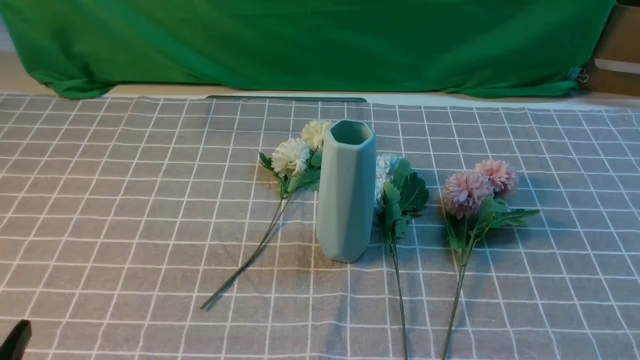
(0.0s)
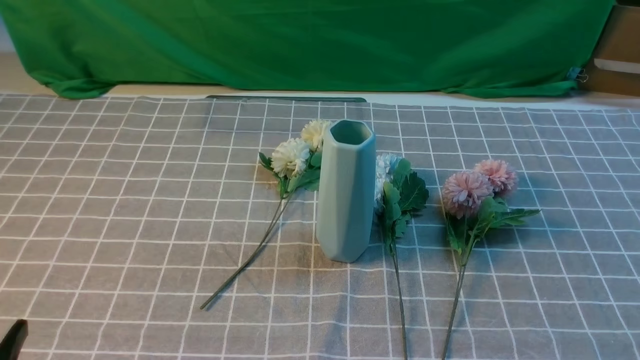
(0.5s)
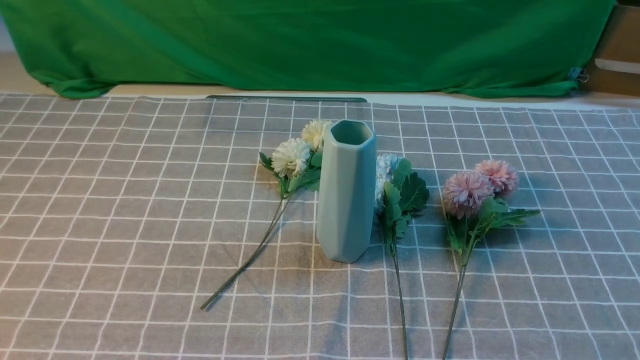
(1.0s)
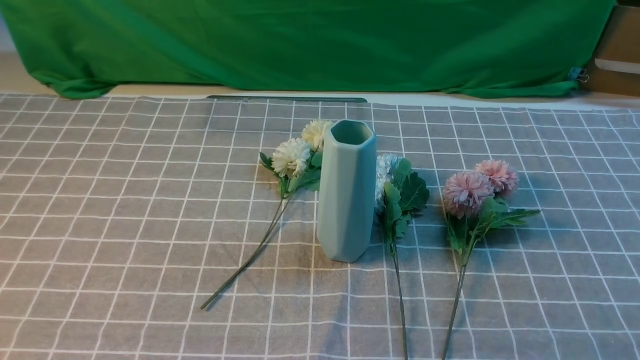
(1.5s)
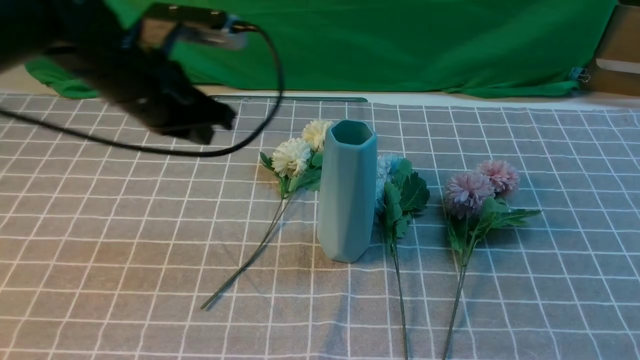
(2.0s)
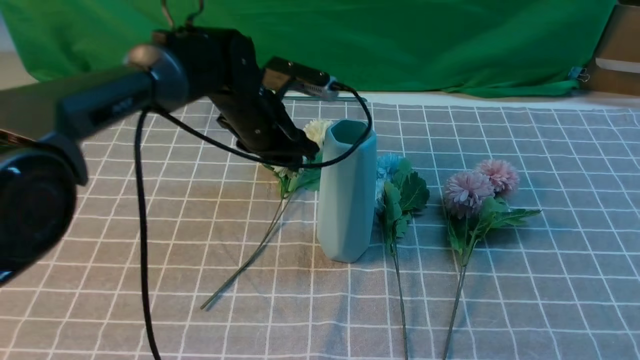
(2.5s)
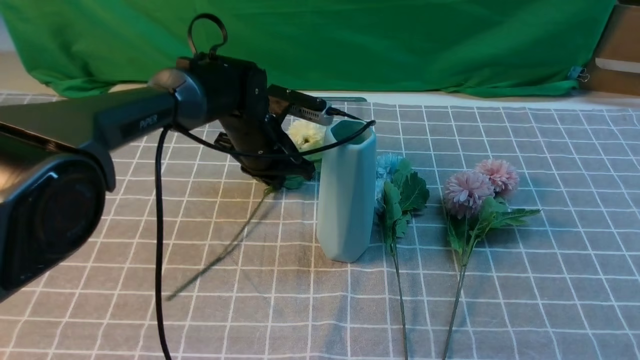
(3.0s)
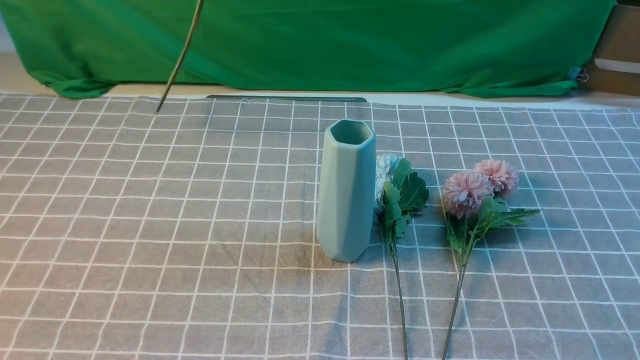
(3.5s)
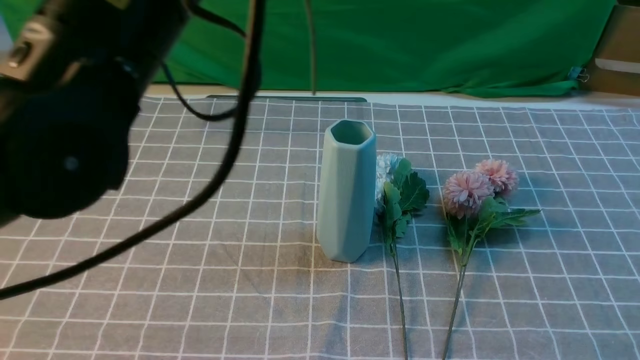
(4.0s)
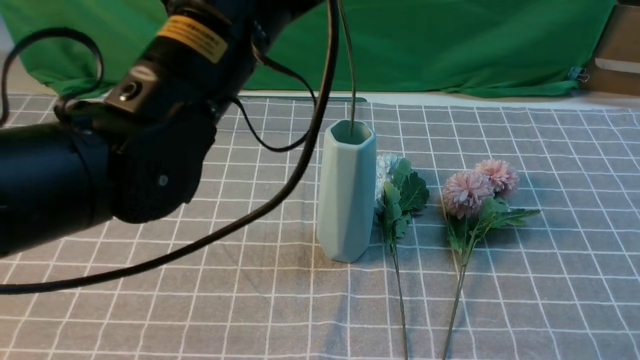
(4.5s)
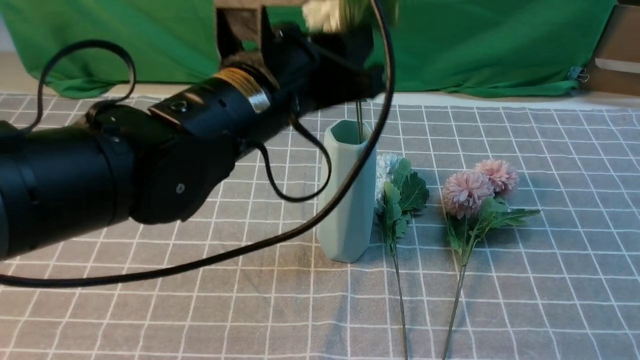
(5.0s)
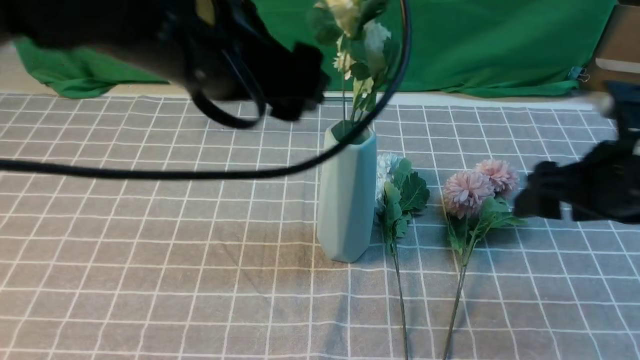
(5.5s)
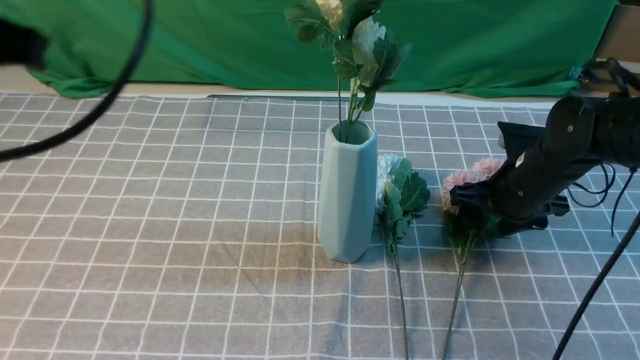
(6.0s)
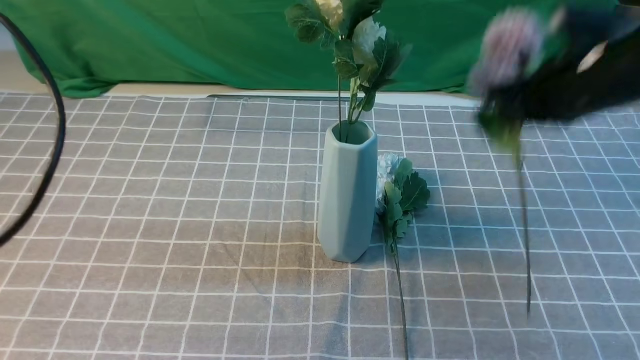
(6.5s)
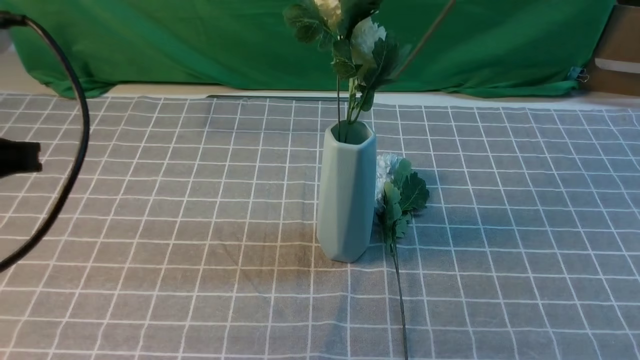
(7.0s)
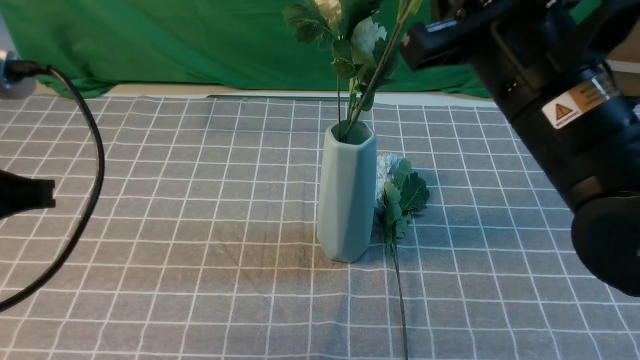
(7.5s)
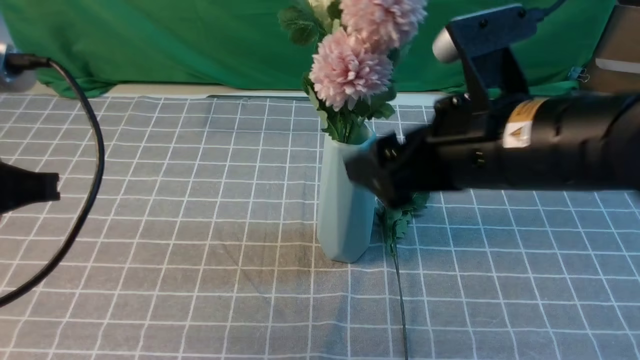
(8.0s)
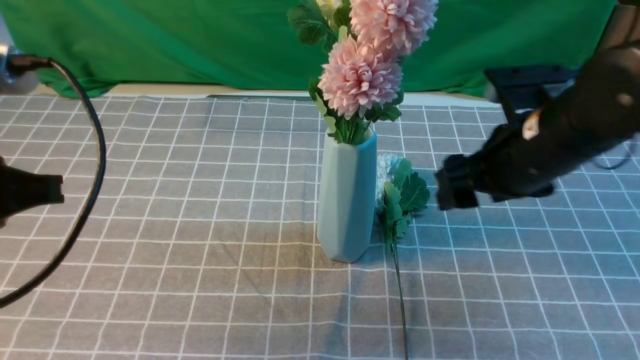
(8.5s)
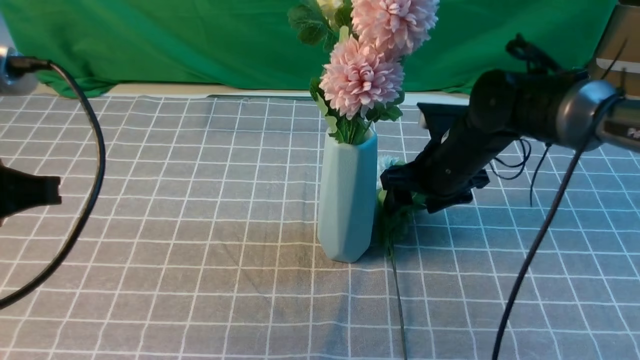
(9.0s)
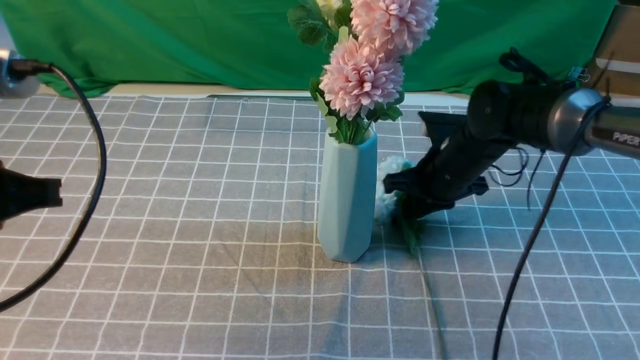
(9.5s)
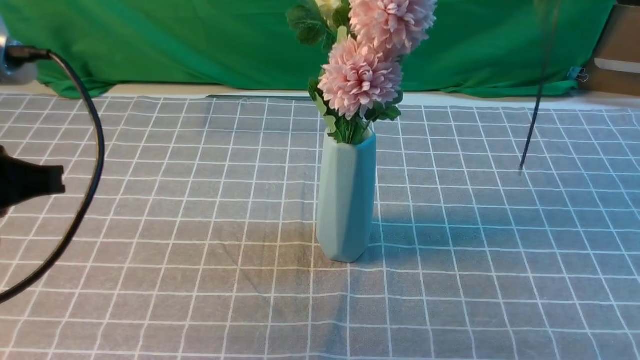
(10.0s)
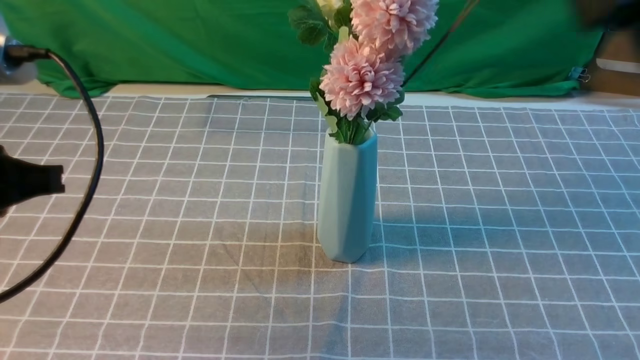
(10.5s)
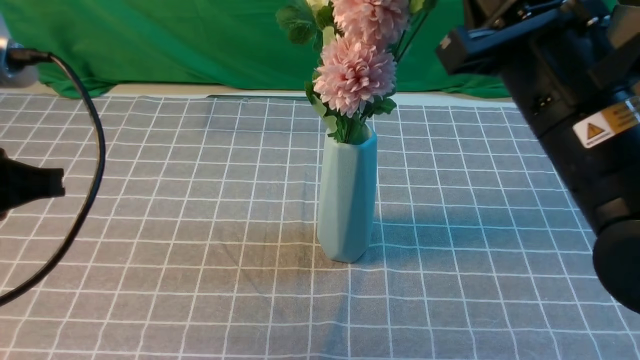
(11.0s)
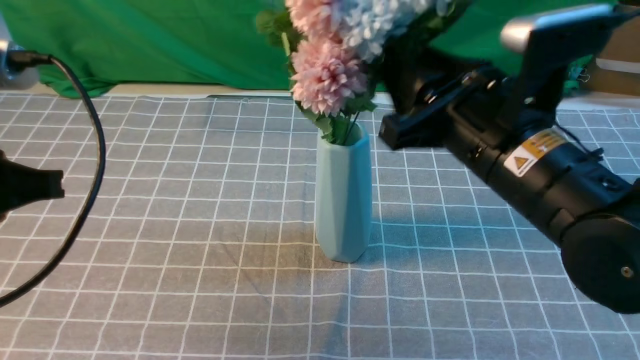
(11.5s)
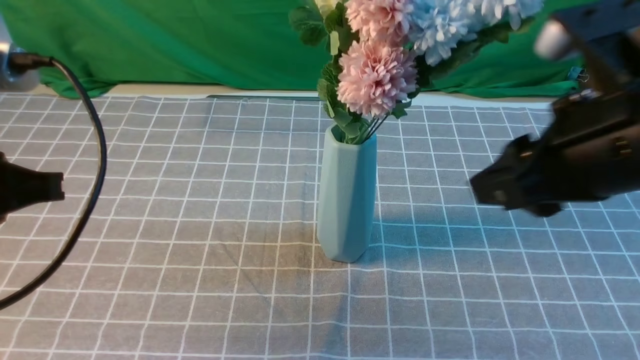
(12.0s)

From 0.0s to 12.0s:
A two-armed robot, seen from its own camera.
Task of the whole recording: insert the flowers into the vase on the table with the grey tablecloth.
Step, from 0.0s to 3.0s: use the left arm to grab a bunch of fresh flowers.
Step, from 3.5s to 5.0s: use the left arm to insert the flowers into the vase.
Step, from 6.5s to 8.0s: use the right arm to insert the flowers into the vase.
Step, from 8.5s to 9.5s: use the right arm to grab a bunch of fresh flowers.
Step, from 10.0s to 11.5s: use the right arm to insert the flowers into the vase.
From 0.0s to 2.0s: The left gripper is displaced forward by about 30 cm, and closes, while the right gripper shifts approximately 10 cm upward.
From 2.0s to 4.0s: The left gripper goes up and down, about 25 cm each way, reversing 2 times, and opens and closes again; the right gripper heads upward and forward, covering roughly 5 cm.
From 4.0s to 6.0s: The left gripper heads to the left and backward, covering roughly 15 cm, and opens and closes again, while the right gripper goes roughly 30 cm forward and downward, and opens.
From 6.0s to 8.0s: The left gripper travels downward by roughly 10 cm. Meanwhile the right gripper travels upward, backward and to the left by roughly 25 cm, and closes and opens again.
From 8.0s to 10.0s: The right gripper goes roughly 20 cm upward, to the right and forward, and closes its fingers.
From 10.0s to 12.0s: The right gripper travels backward, downward and to the left by roughly 15 cm, and opens up.

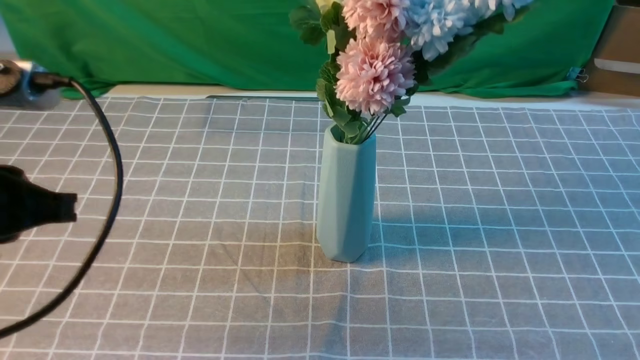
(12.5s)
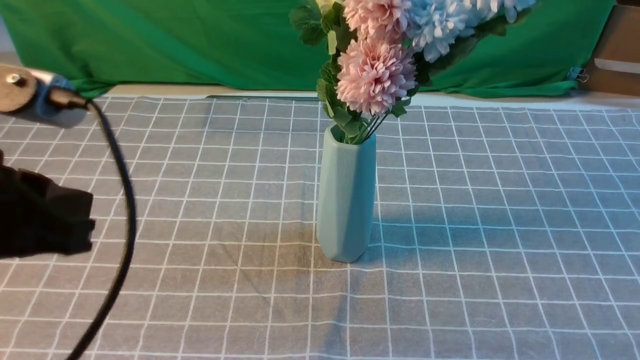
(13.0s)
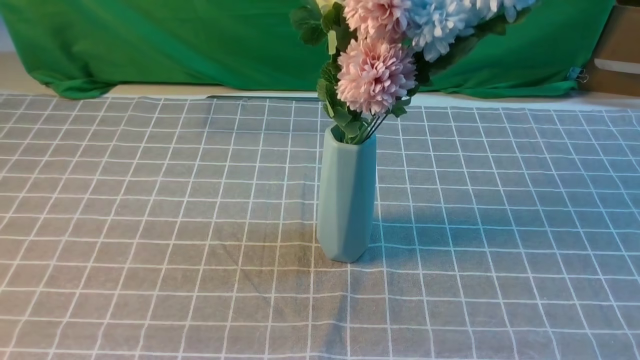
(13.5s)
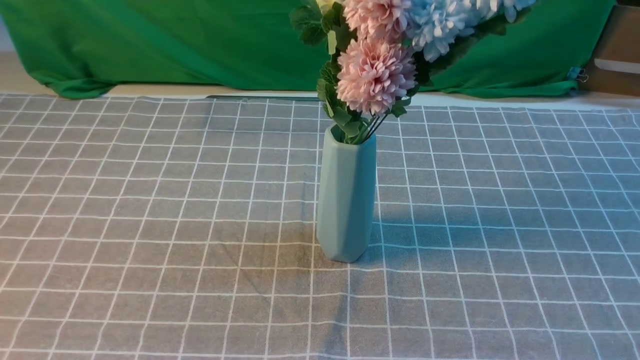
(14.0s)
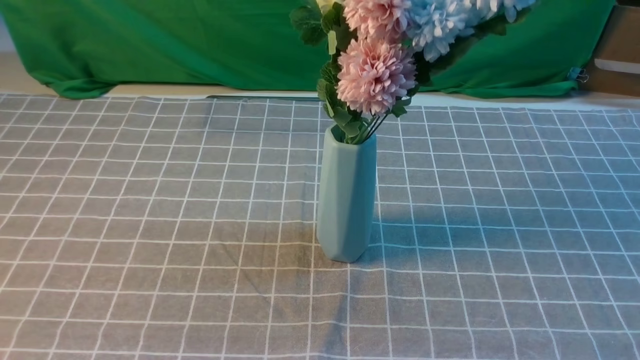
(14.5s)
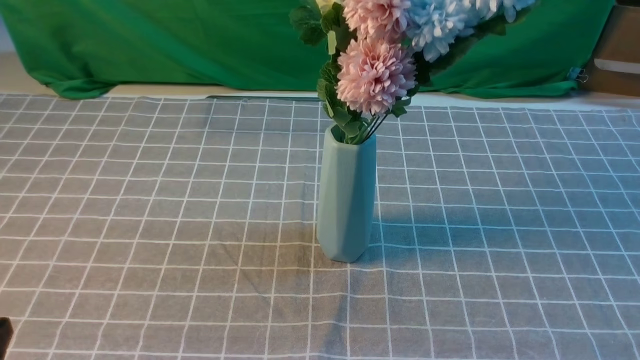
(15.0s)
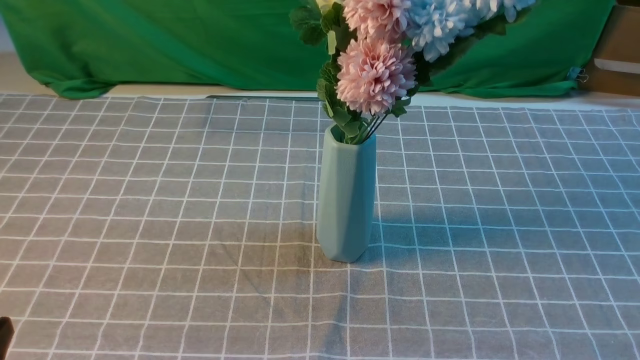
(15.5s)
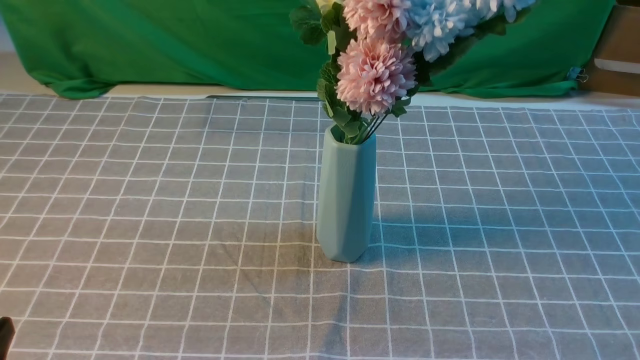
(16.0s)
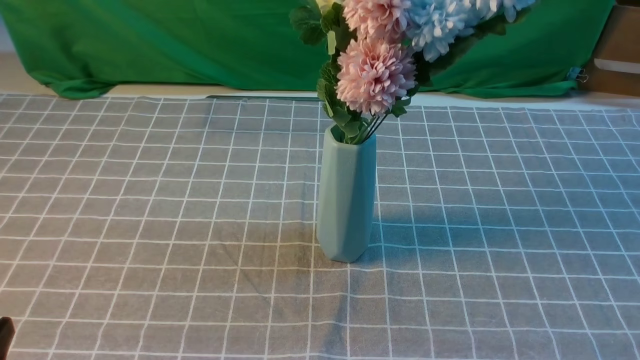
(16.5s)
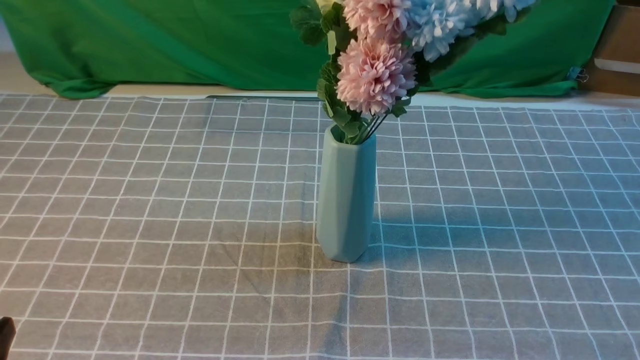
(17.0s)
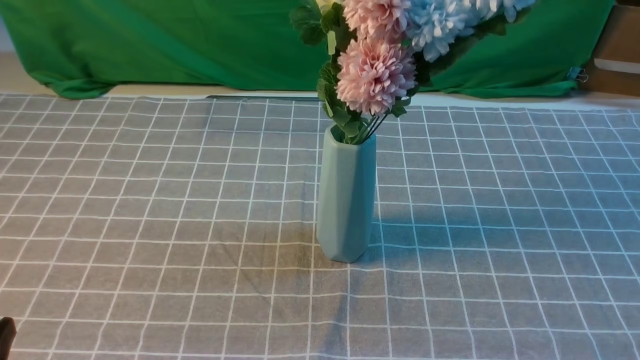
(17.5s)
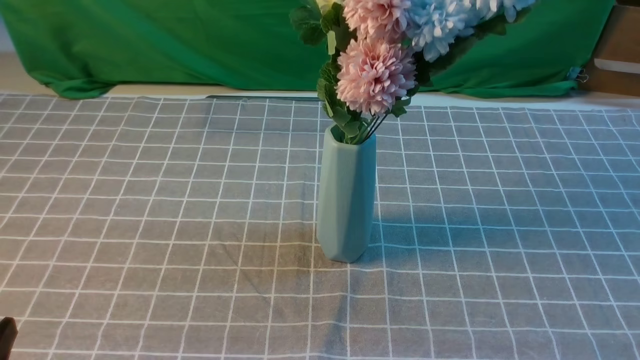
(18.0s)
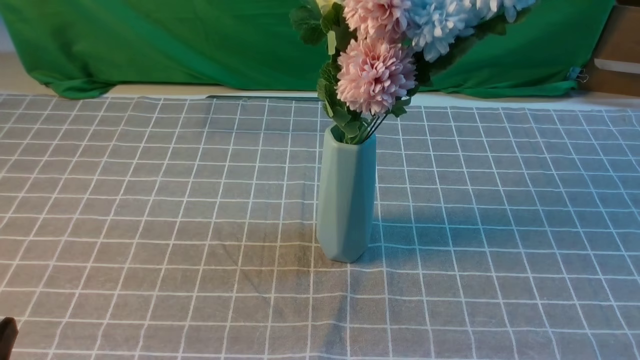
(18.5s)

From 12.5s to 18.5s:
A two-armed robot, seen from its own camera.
Task of the whole recording: insert the flowers into the vase on the table with the grey tablecloth.
From 12.5s to 14.5s: The left gripper moves backward, about 15 cm. Meanwhile the right gripper is displaced downward and backward by roughly 15 cm.
